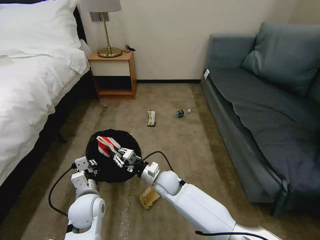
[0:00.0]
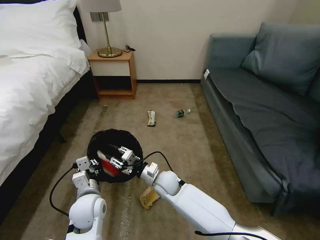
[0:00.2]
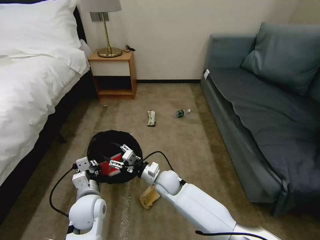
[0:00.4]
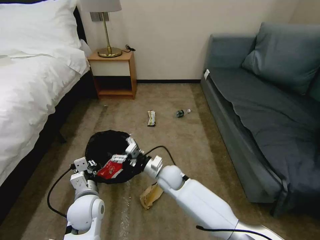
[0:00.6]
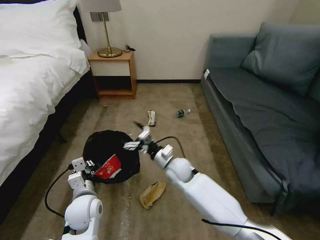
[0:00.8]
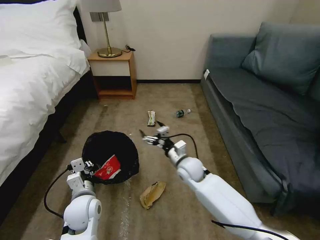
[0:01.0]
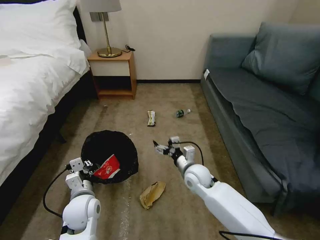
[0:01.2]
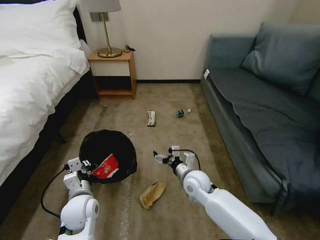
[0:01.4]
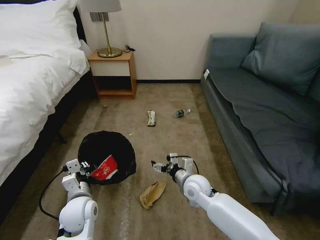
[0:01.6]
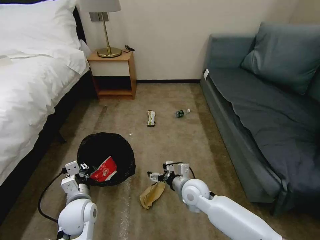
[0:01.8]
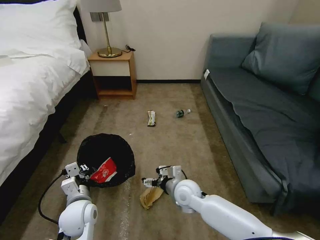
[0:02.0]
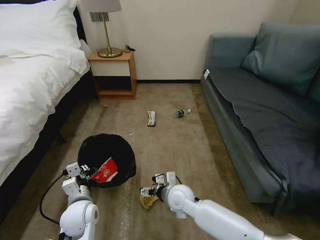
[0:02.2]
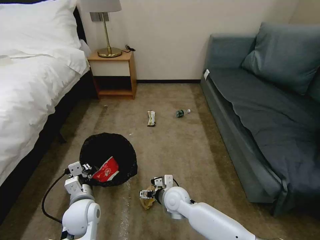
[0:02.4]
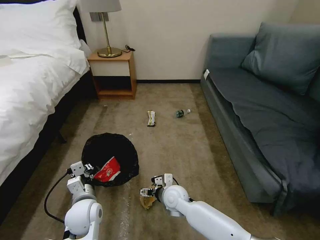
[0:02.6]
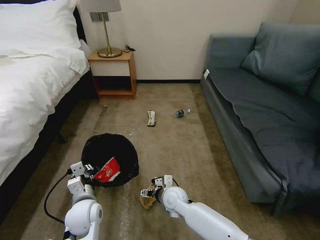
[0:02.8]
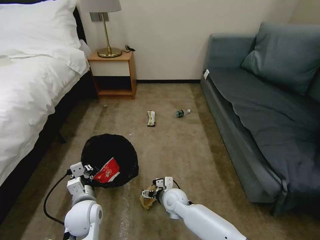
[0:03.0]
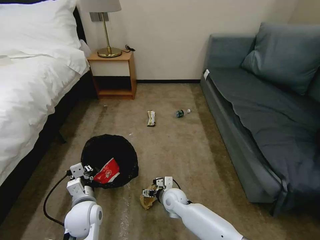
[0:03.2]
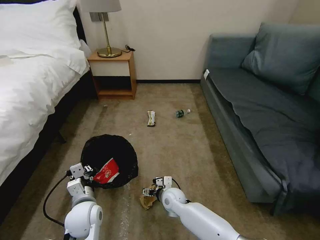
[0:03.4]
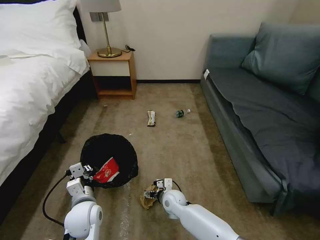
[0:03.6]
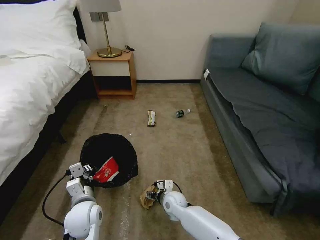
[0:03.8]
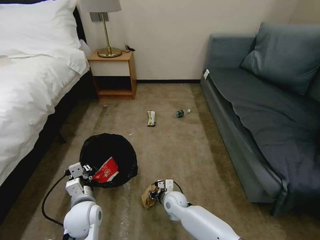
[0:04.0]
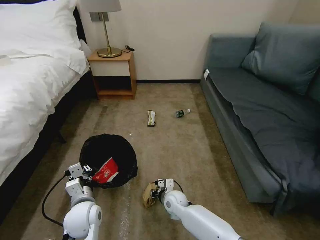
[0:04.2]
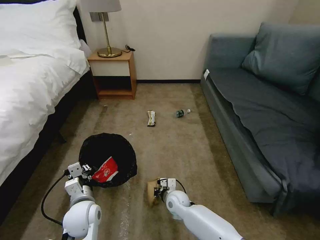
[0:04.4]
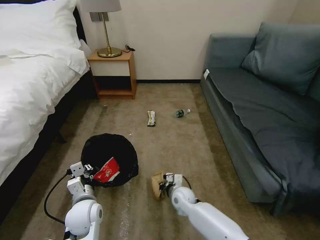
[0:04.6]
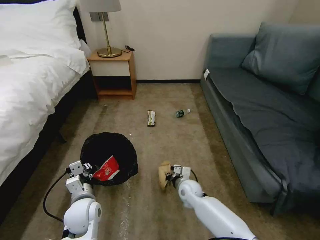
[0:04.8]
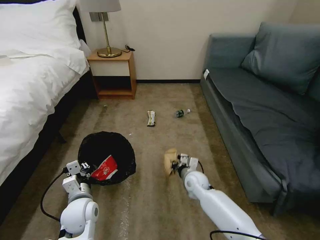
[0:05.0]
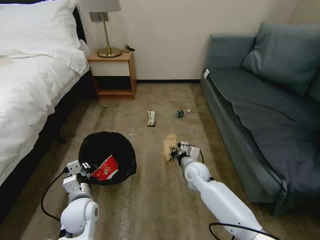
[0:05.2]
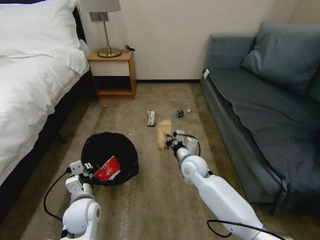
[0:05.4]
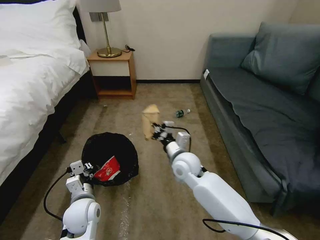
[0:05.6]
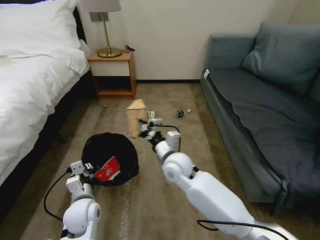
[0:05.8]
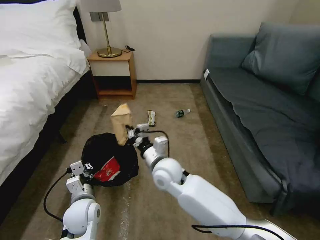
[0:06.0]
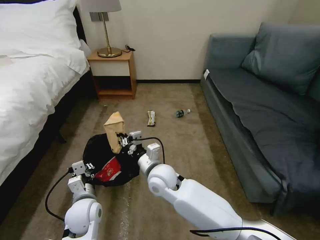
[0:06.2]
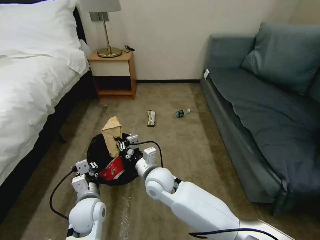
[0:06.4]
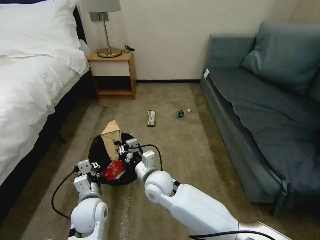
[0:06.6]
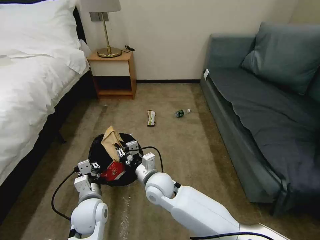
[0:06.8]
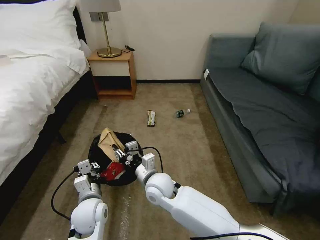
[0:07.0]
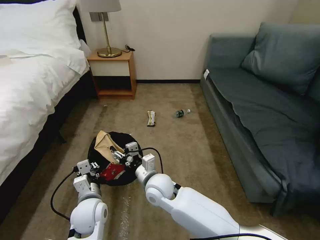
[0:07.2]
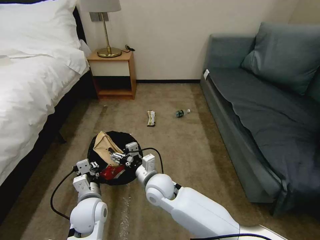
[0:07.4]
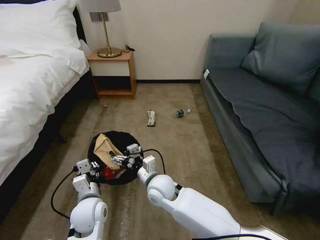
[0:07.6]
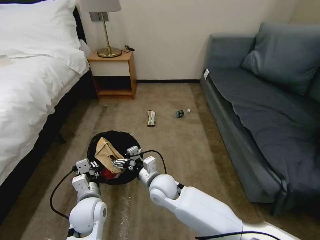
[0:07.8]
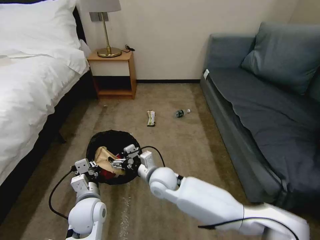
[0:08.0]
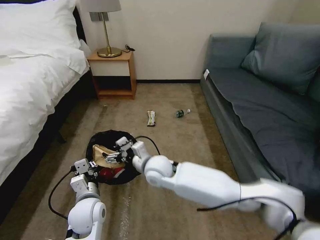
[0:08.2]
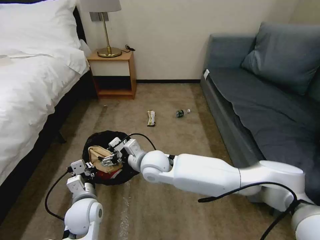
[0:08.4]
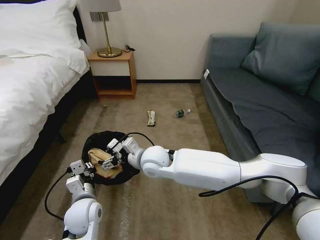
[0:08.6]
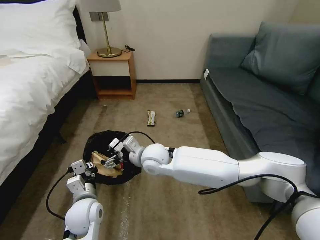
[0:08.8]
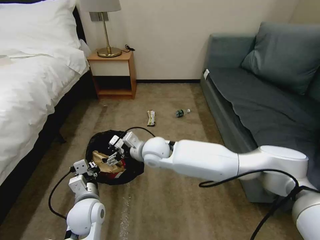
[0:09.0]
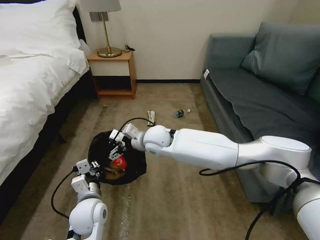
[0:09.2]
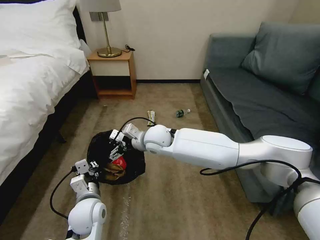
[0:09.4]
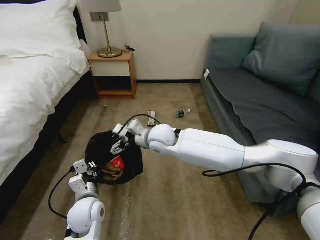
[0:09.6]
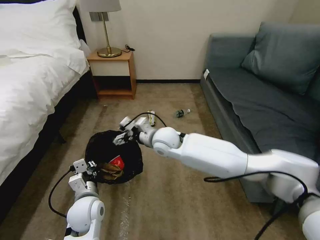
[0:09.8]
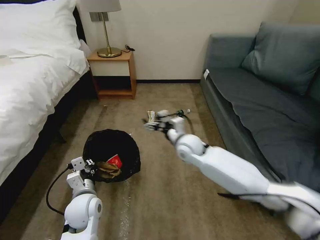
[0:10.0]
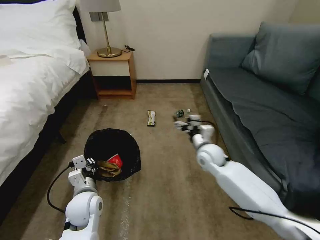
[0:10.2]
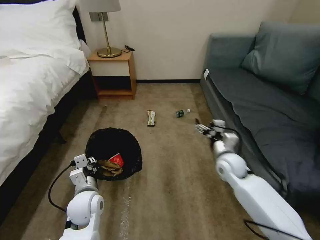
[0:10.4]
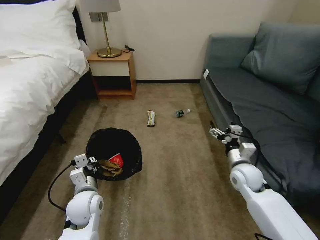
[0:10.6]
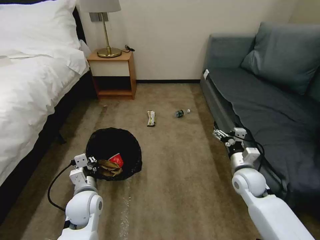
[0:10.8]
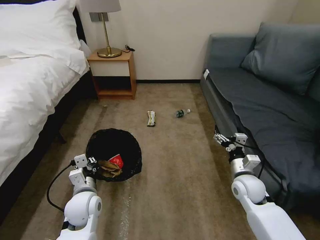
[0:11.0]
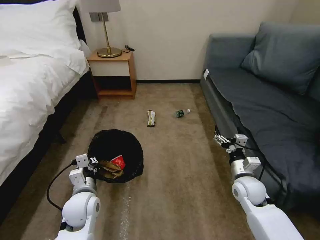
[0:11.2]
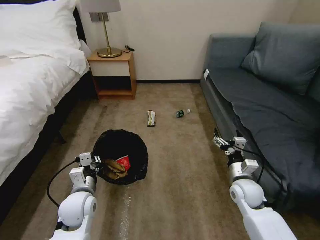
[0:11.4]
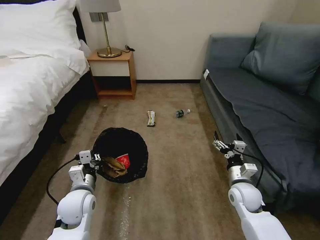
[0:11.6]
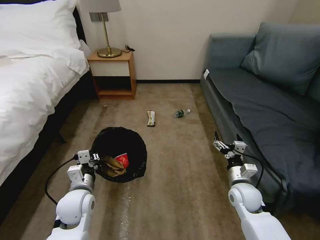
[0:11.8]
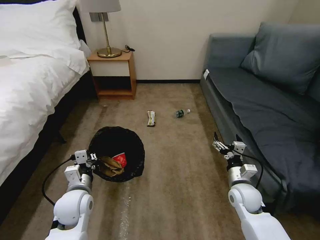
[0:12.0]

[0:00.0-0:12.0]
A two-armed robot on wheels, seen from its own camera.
Task of the whole recording: Pick up the trash bin, then pick up the garbage on the floor and place it into the trash bin.
0:00.0 to 0:01.6: The right gripper travels to the right by roughly 10 cm, and opens.
0:01.6 to 0:03.0: The right gripper heads downward and to the left, covering approximately 10 cm.
0:03.0 to 0:04.4: The right gripper closes up.
0:04.4 to 0:06.0: The right gripper is displaced upward by some 20 cm.
0:06.0 to 0:07.6: The right gripper goes roughly 5 cm downward, and opens.
0:07.6 to 0:09.0: The right gripper heads upward and forward, covering about 15 cm.
0:09.0 to 0:10.4: The right gripper is displaced to the right by approximately 25 cm.
0:10.4 to 0:12.0: The right gripper moves backward and downward, roughly 10 cm.

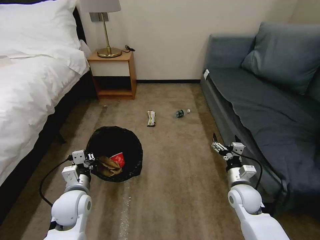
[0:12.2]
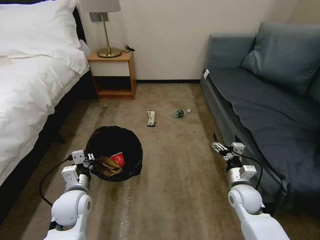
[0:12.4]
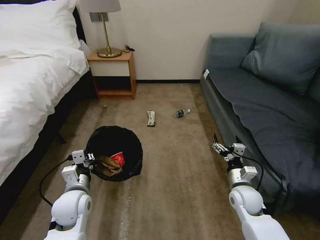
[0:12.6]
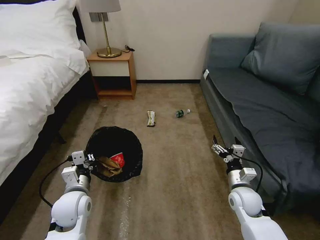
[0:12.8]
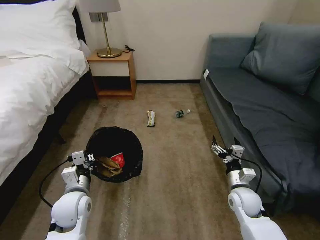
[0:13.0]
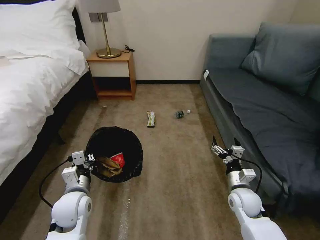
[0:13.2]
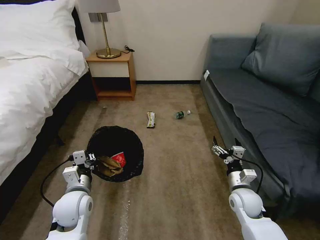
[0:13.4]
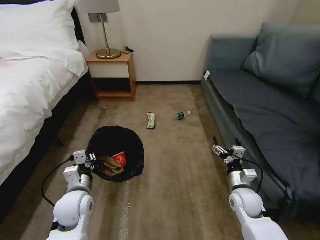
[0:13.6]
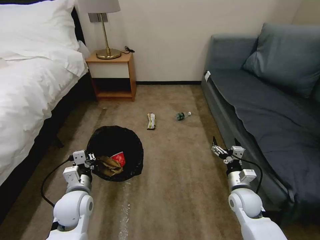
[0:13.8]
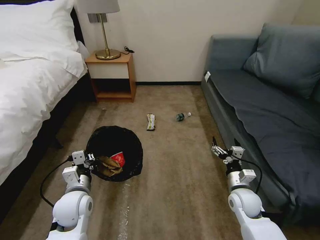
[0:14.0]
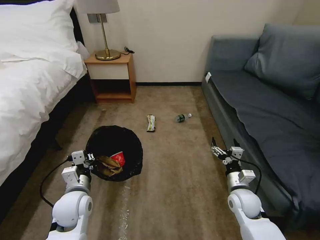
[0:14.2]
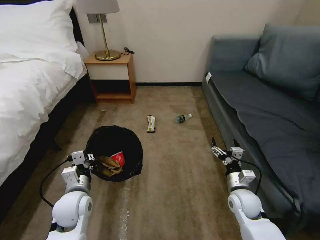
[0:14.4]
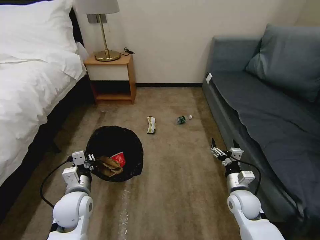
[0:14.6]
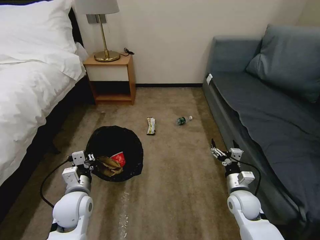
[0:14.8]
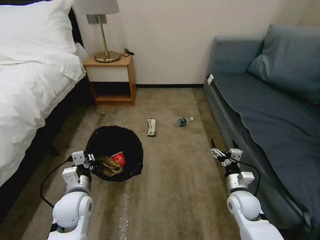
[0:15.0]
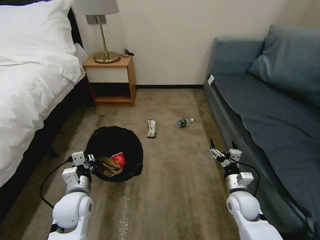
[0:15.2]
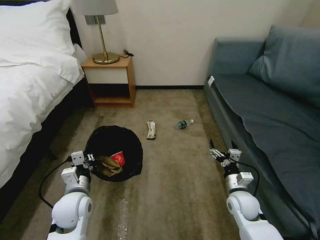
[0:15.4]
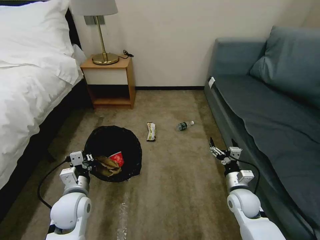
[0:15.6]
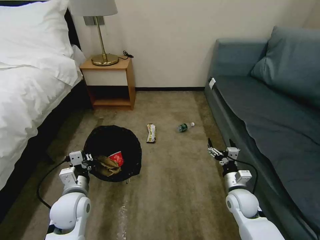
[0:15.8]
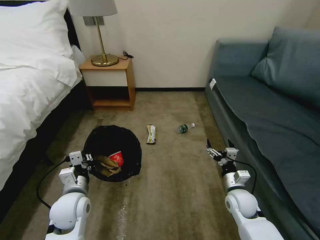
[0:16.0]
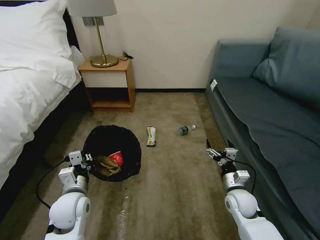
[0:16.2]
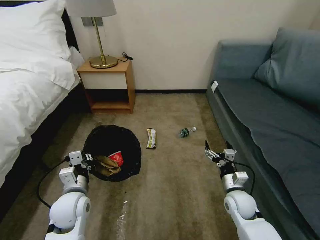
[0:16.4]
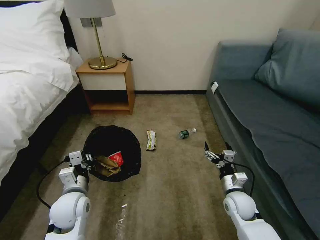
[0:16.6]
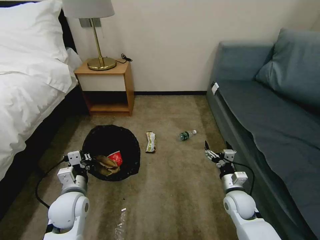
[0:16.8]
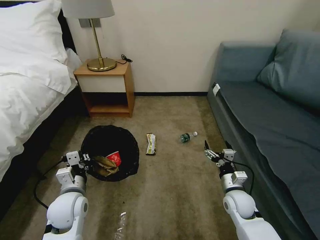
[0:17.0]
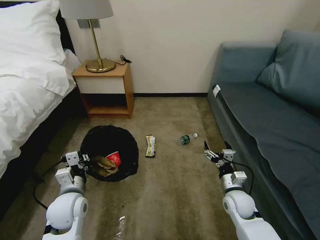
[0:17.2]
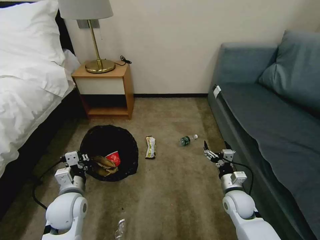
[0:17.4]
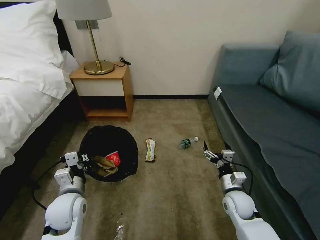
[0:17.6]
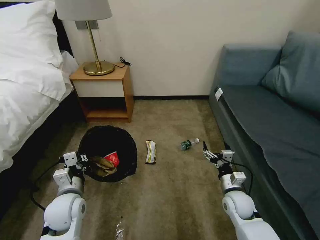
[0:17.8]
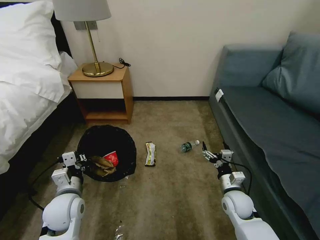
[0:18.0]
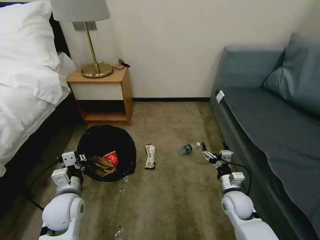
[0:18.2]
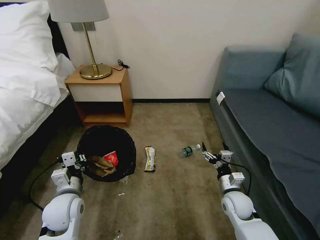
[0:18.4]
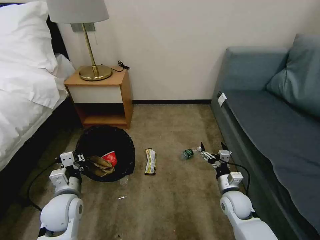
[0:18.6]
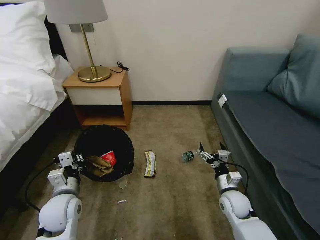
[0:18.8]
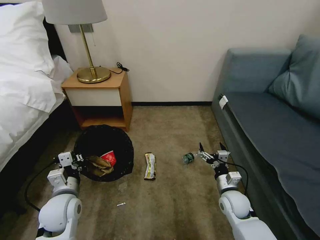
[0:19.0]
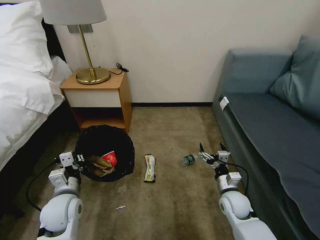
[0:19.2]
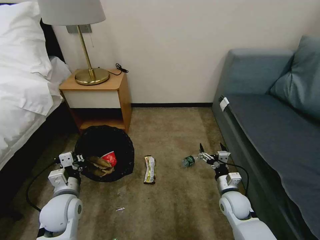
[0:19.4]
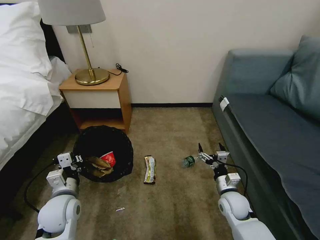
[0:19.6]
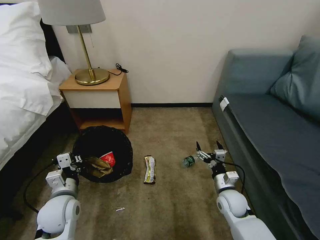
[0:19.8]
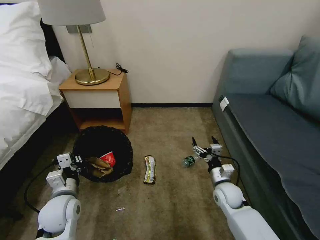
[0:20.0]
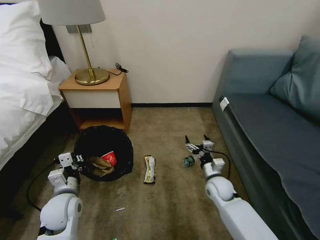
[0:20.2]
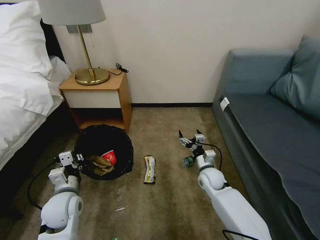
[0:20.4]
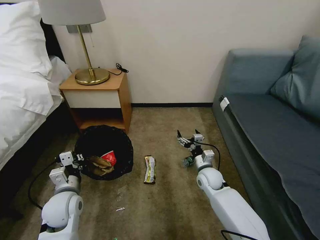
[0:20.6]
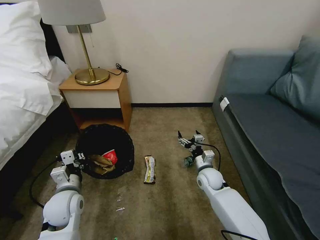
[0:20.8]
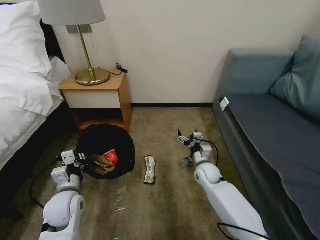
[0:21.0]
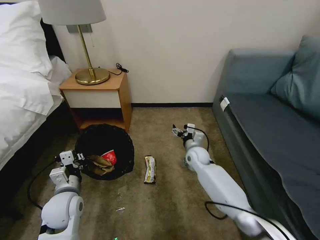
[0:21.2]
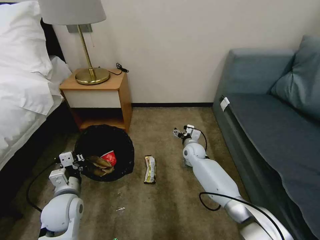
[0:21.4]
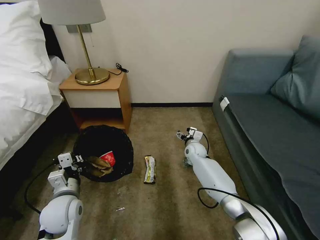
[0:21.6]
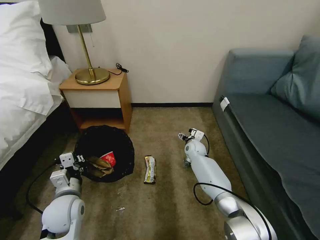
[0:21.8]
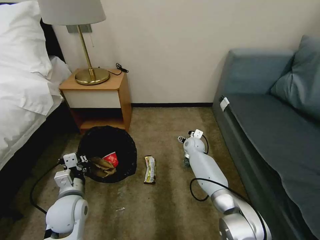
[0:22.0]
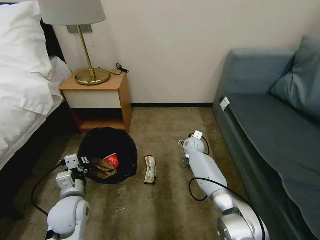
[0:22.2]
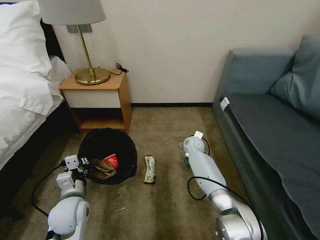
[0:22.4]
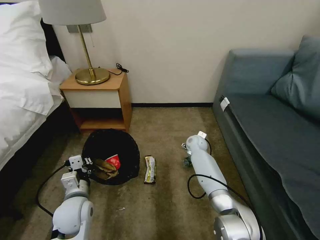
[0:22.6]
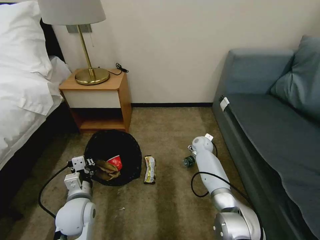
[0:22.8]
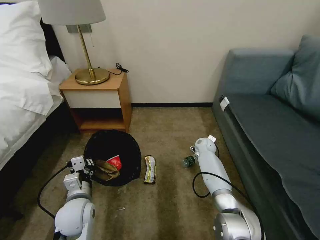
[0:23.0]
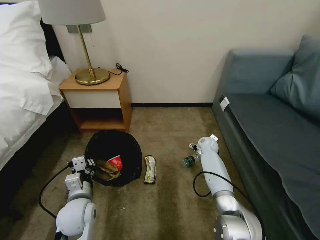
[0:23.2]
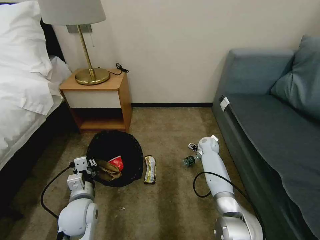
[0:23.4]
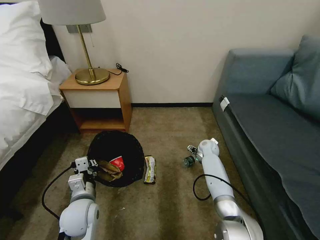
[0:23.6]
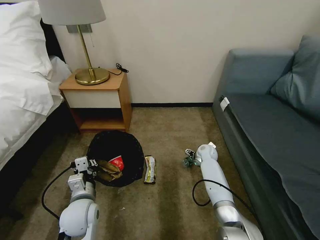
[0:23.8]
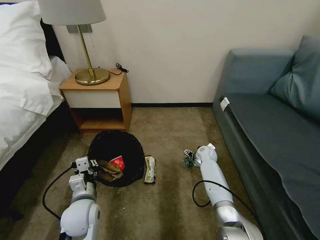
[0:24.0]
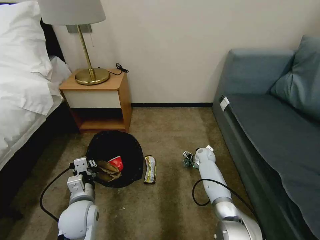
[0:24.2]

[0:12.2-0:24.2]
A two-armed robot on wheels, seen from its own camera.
Task of the whole recording: Pick up the trash bin, then pick up the garbage on the floor and place it into the trash bin.
0:12.2 to 0:13.8: The grippers make only small movements.
0:13.8 to 0:15.2: Both grippers stay about where they are.
0:15.2 to 0:16.6: Both grippers stay about where they are.
0:18.2 to 0:19.8: The grippers move only a little.
0:19.8 to 0:21.2: The right gripper is displaced forward and to the left by approximately 20 cm.
0:21.2 to 0:22.6: The right gripper shifts about 10 cm forward.
0:22.6 to 0:24.2: The right gripper shifts some 10 cm downward and to the right.
